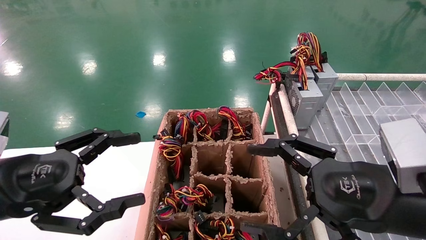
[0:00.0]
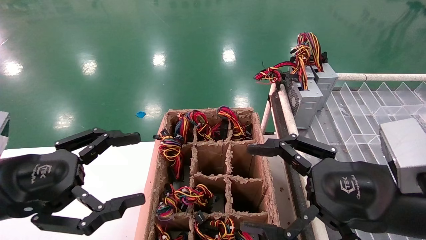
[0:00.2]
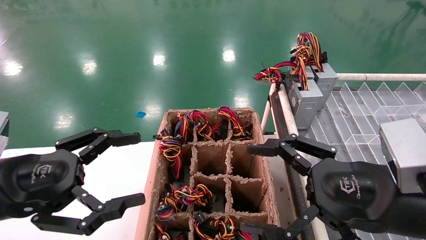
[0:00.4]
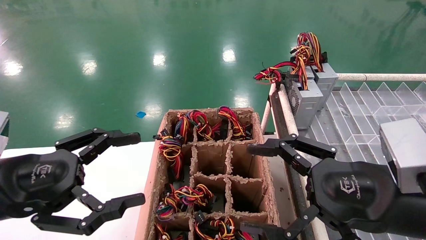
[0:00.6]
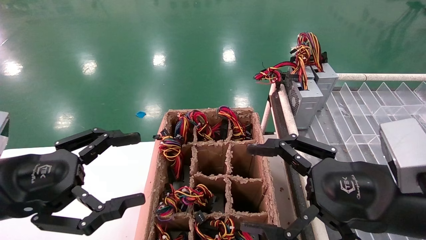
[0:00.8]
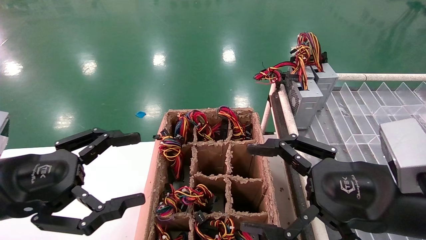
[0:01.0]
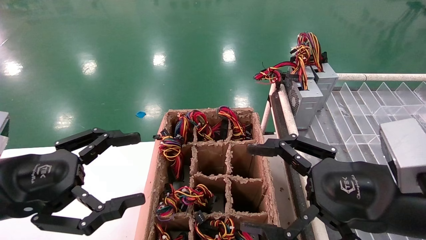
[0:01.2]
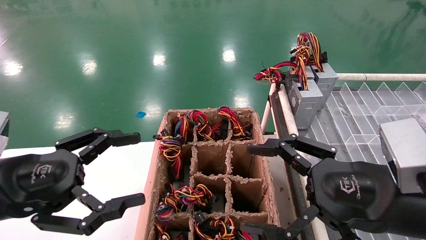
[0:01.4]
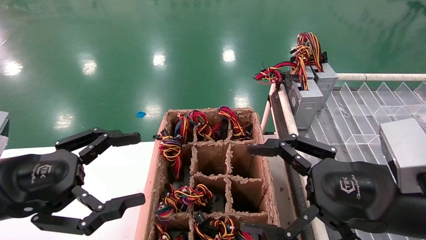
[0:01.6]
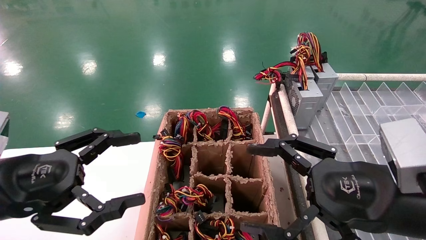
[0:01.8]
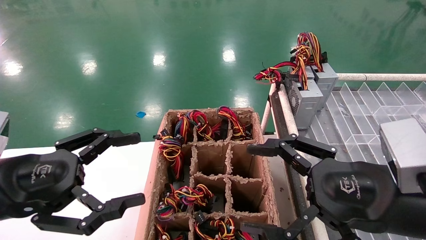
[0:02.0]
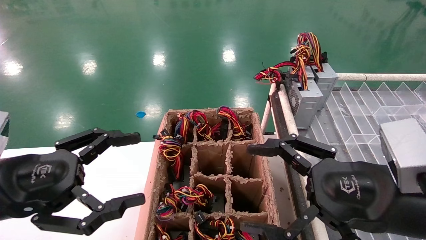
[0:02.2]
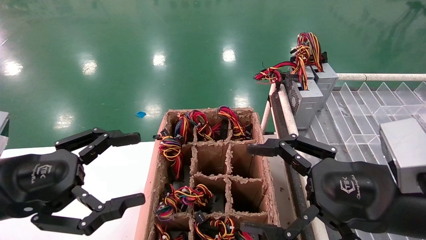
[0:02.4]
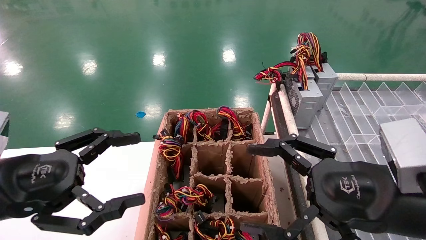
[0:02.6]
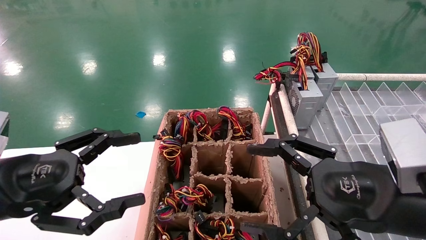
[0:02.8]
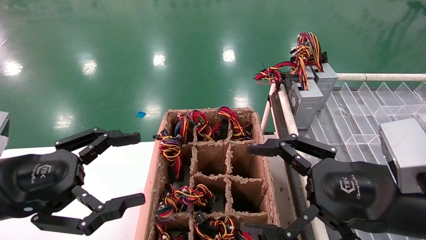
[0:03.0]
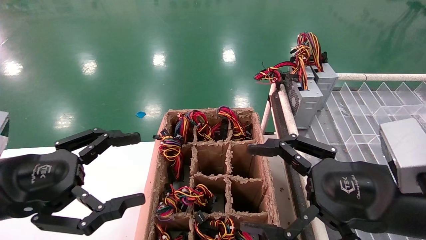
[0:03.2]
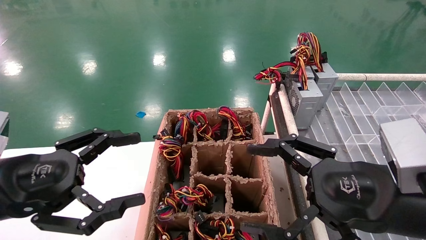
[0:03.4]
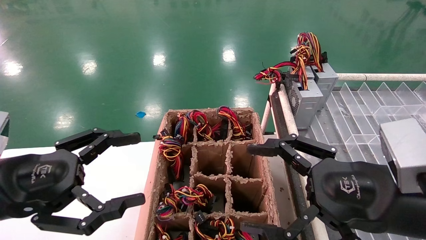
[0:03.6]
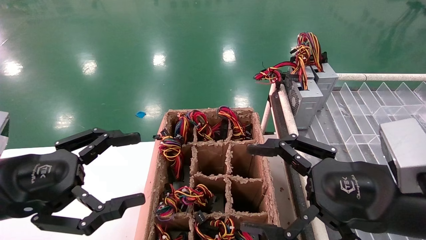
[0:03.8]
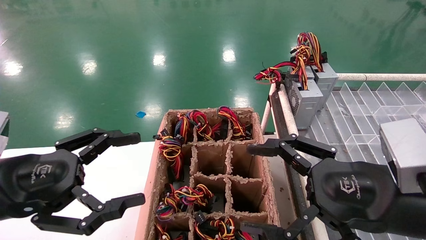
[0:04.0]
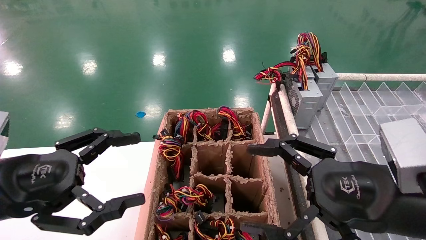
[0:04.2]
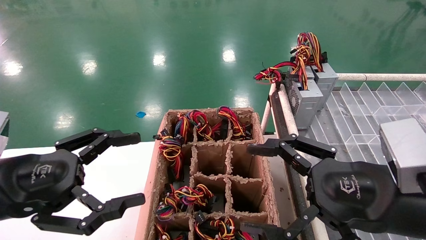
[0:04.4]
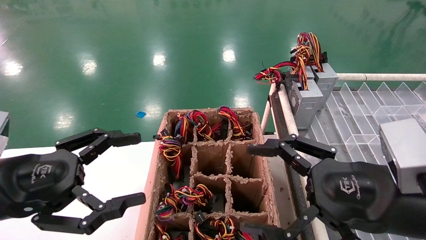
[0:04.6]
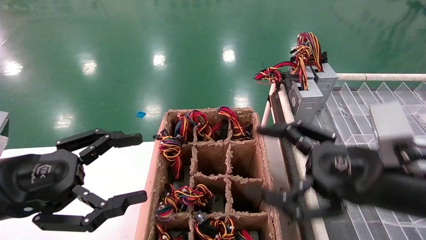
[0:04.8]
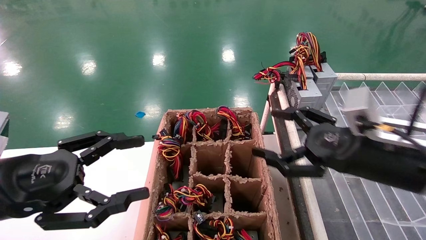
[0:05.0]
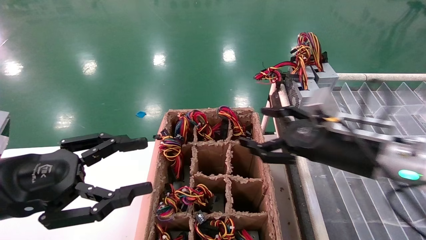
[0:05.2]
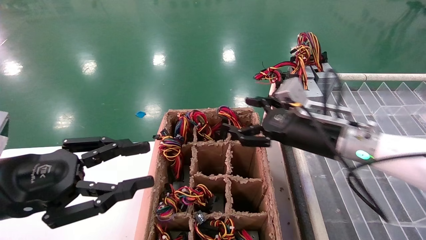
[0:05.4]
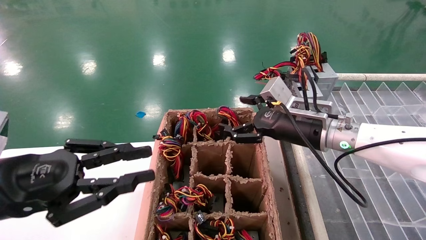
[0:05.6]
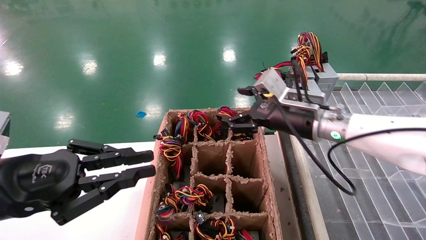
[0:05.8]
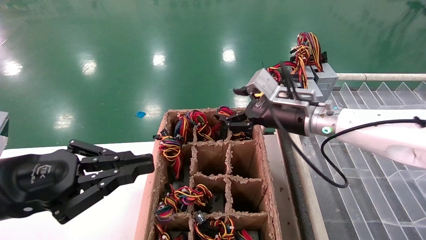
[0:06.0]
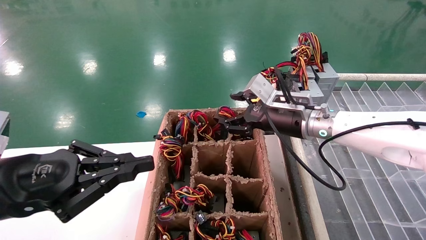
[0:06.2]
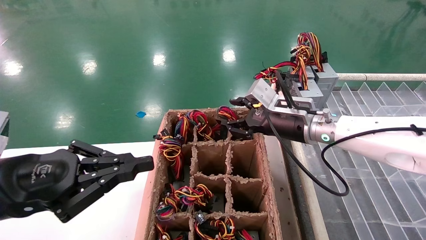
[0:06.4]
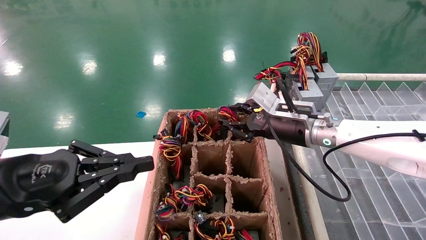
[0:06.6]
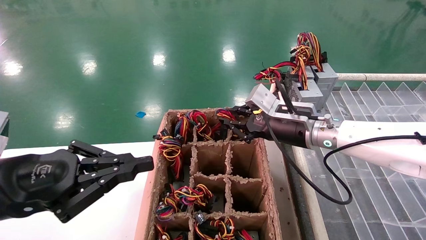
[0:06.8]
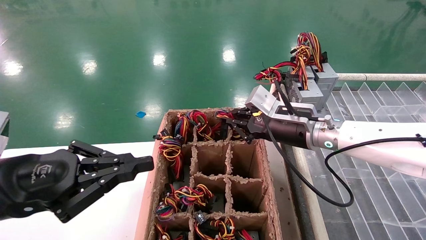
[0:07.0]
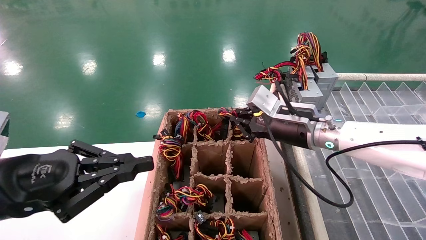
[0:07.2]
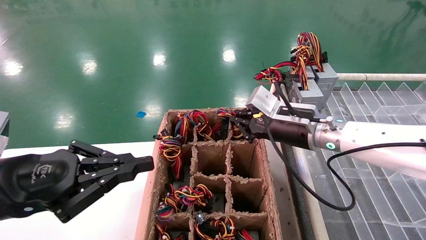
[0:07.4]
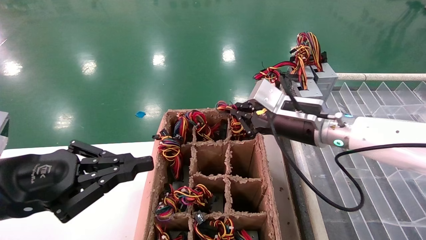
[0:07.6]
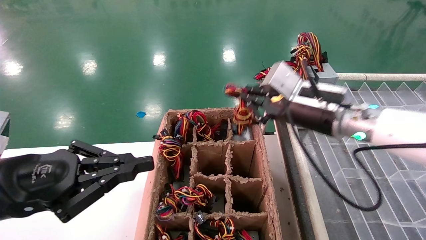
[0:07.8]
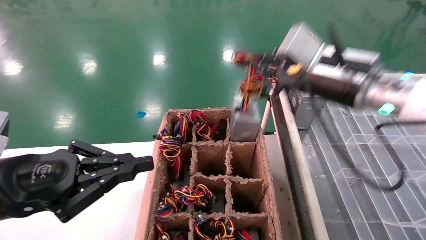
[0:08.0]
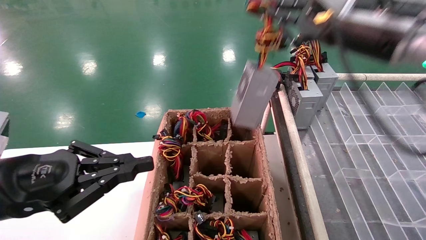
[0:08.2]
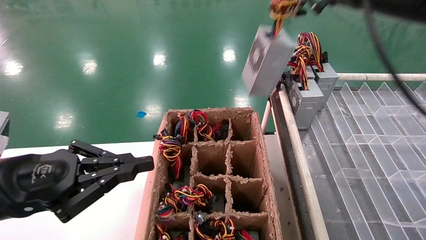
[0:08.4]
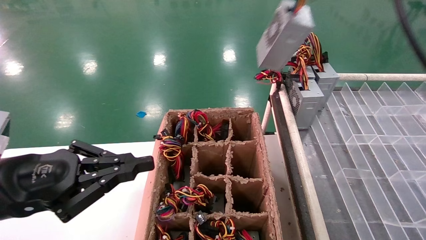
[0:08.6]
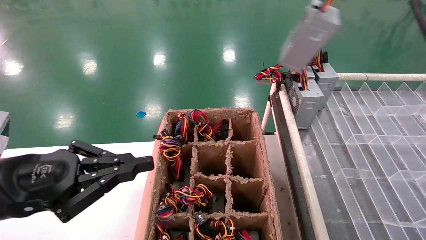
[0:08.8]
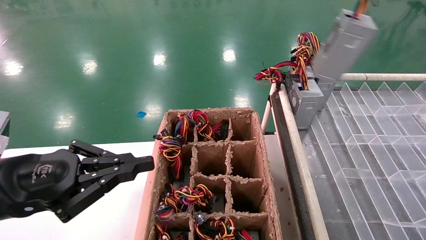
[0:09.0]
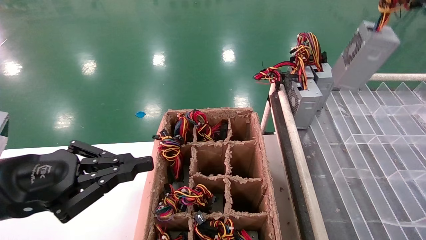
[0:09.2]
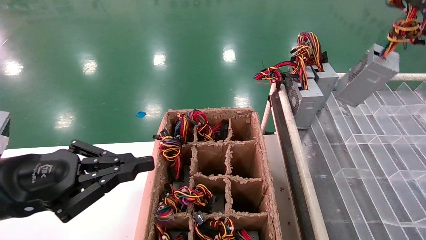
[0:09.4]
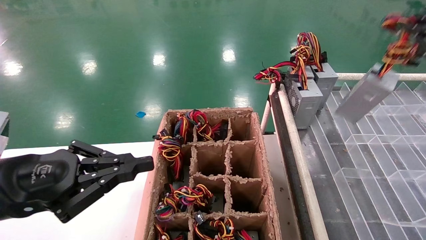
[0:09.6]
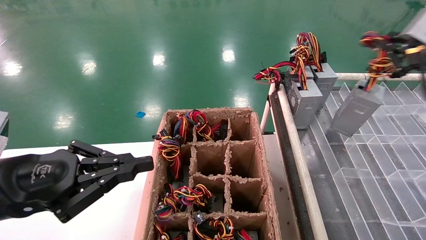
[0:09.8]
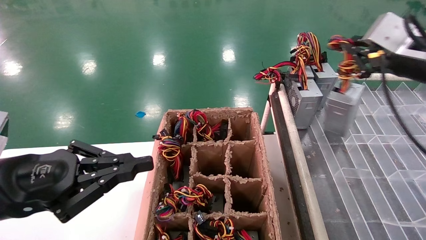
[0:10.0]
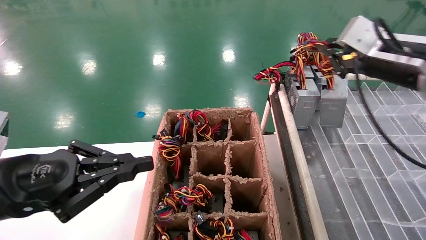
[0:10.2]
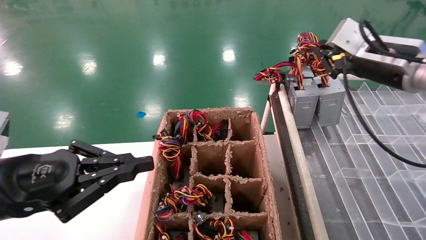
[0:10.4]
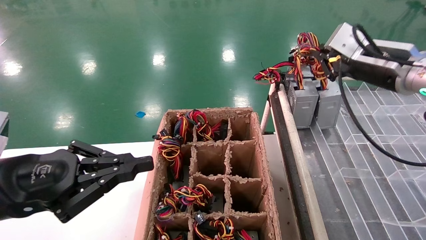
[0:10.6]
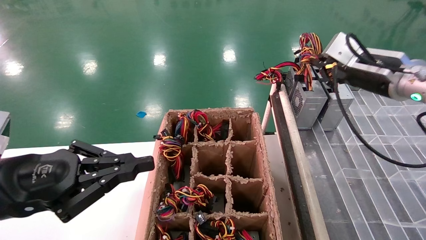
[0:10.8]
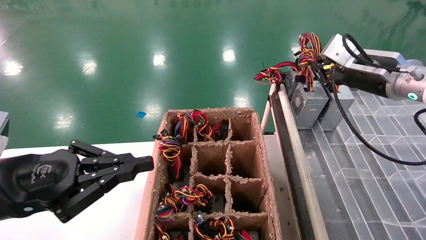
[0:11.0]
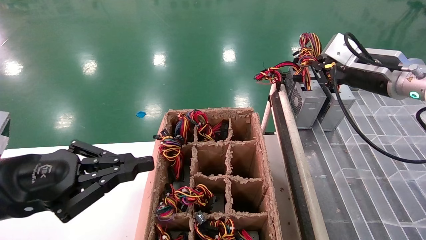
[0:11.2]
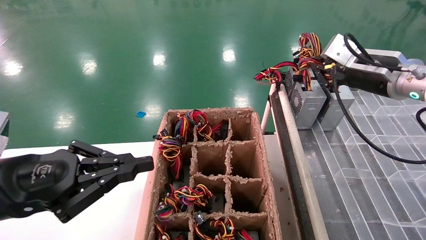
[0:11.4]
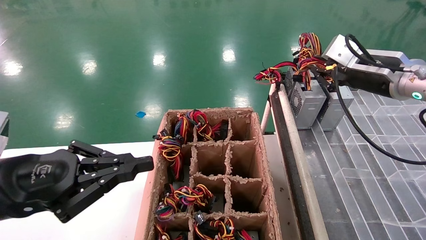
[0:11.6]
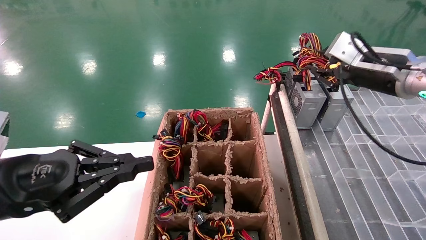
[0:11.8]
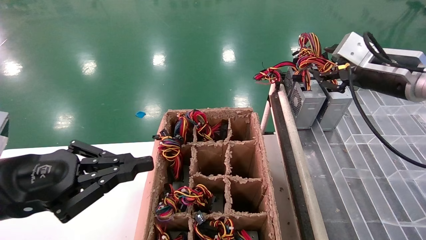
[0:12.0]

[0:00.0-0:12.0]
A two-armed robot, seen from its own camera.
Step, 0:05.0 to 0:07.2: Grab the main unit power supply from the containment box.
0:00.0 to 0:04.4: Both grippers stay about where they are.
0:04.4 to 0:06.0: The left gripper closes its fingers. Meanwhile the right gripper shifts approximately 20 cm forward.
0:06.0 to 0:07.6: The right gripper closes its fingers.
0:07.6 to 0:09.0: The right gripper travels upward, to the right and backward by about 30 cm.
0:09.0 to 0:10.4: The right gripper heads downward and forward, covering about 15 cm.
0:10.4 to 0:12.0: The right gripper opens.

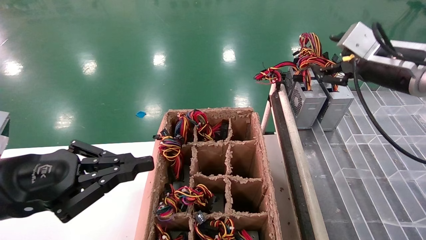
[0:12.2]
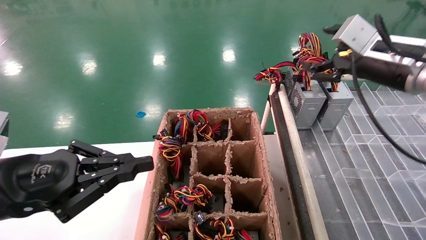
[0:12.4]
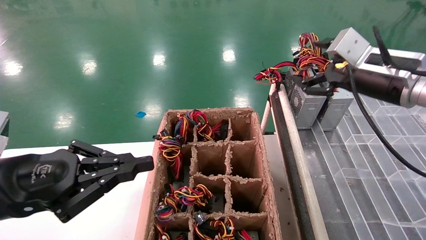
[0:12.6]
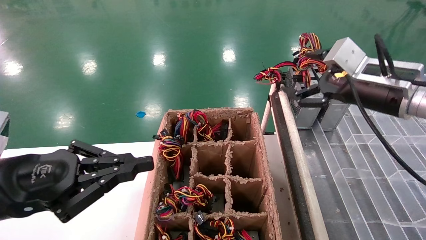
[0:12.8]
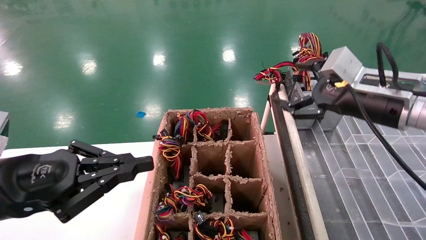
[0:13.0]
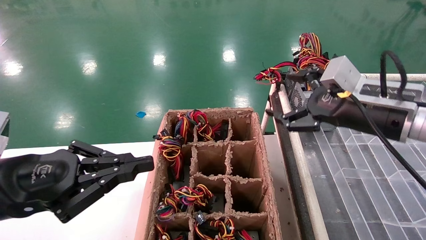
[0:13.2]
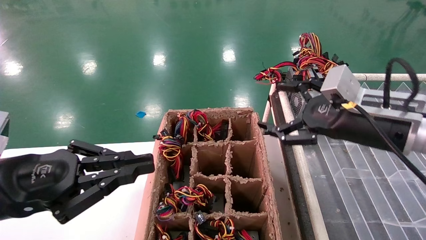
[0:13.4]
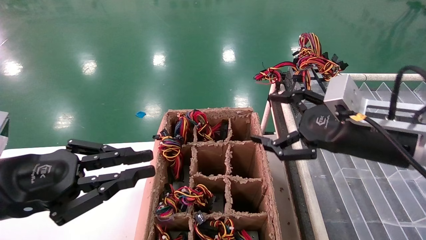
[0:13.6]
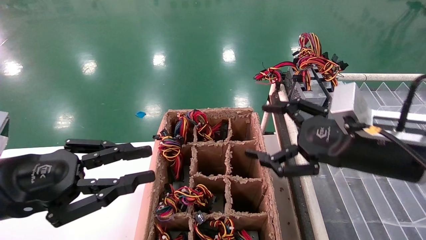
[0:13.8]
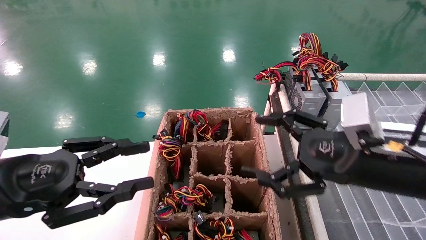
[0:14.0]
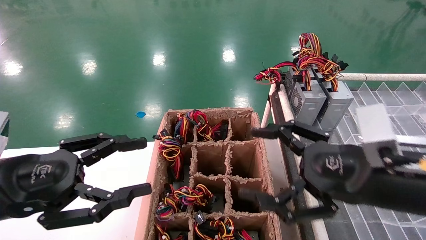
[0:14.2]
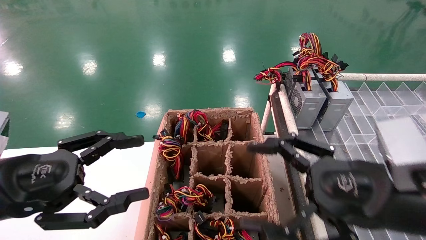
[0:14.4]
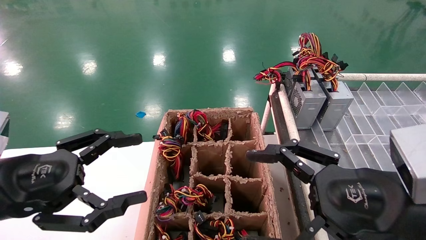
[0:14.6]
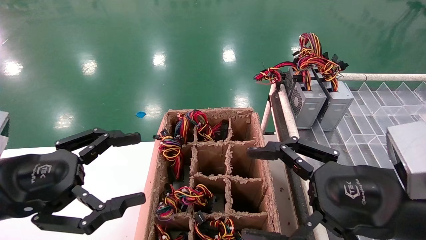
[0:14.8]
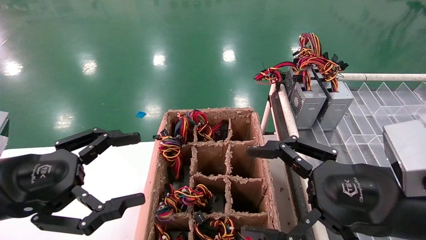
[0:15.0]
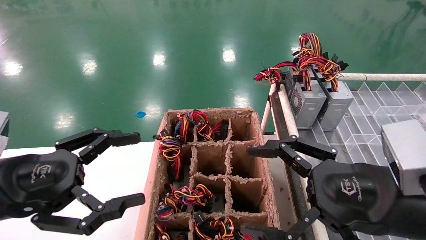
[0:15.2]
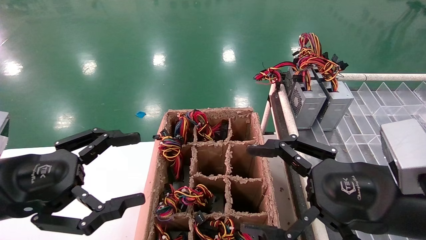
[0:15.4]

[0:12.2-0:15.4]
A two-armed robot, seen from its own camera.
0:12.2 to 0:13.8: The right gripper travels backward, downward and to the left by roughly 15 cm, and opens up.
0:13.8 to 0:15.4: The right gripper heads backward, covering roughly 5 cm; the left gripper opens its fingers.
